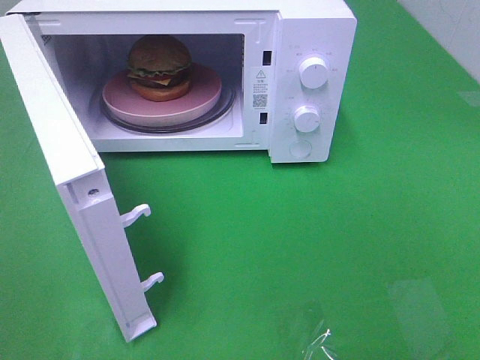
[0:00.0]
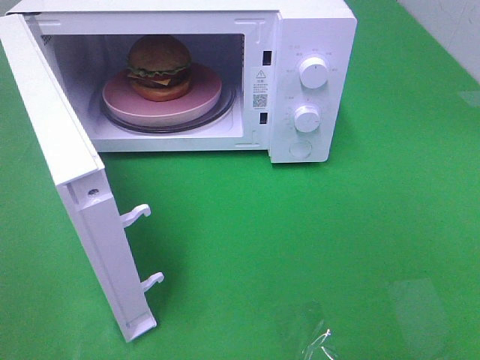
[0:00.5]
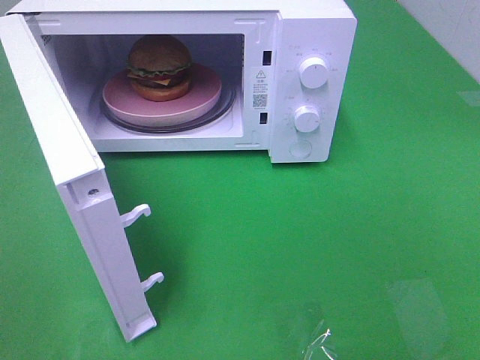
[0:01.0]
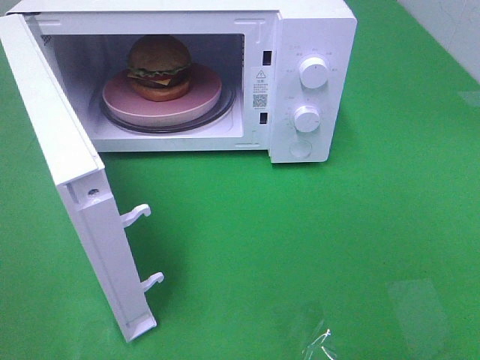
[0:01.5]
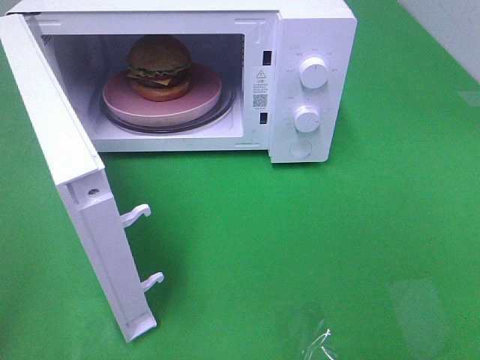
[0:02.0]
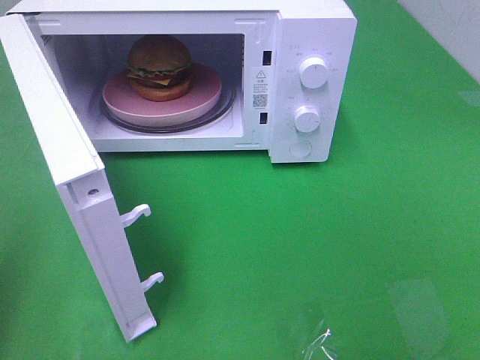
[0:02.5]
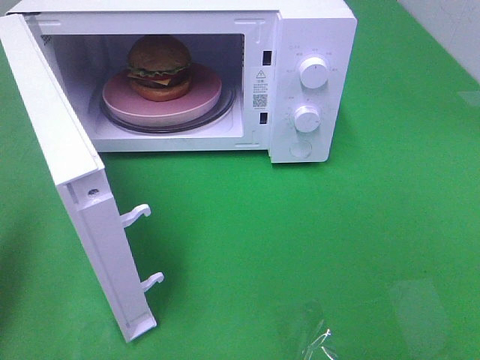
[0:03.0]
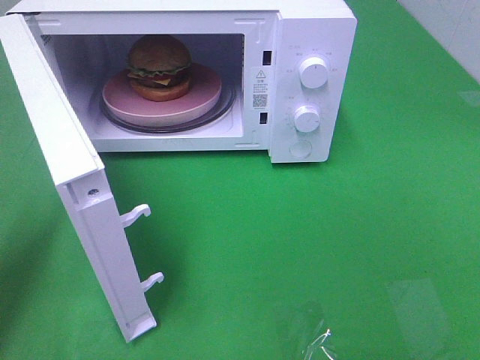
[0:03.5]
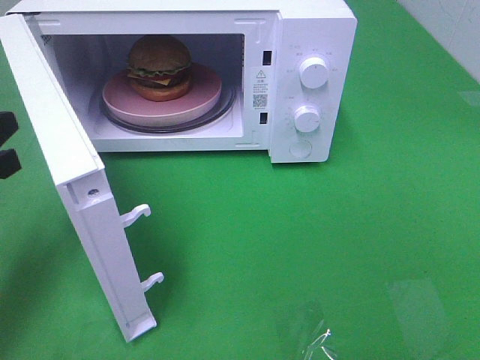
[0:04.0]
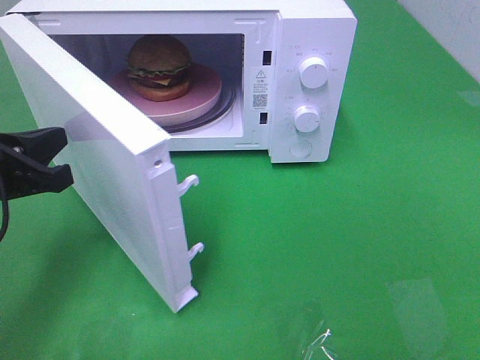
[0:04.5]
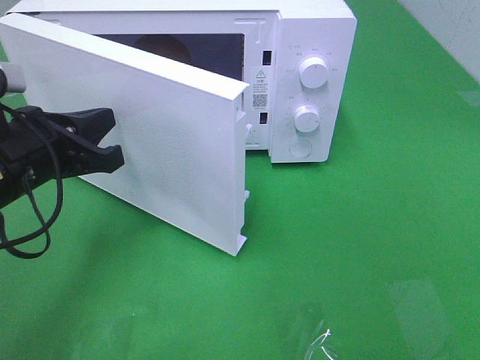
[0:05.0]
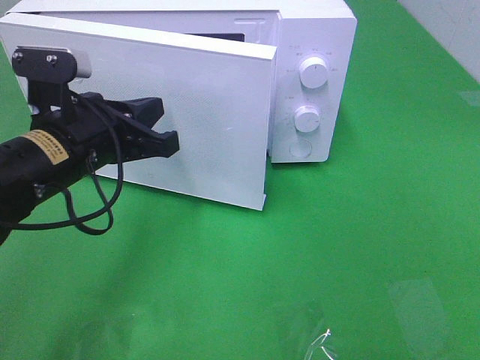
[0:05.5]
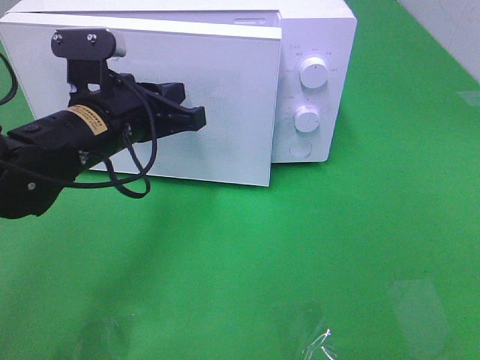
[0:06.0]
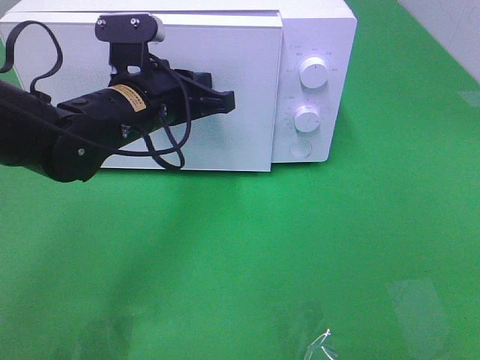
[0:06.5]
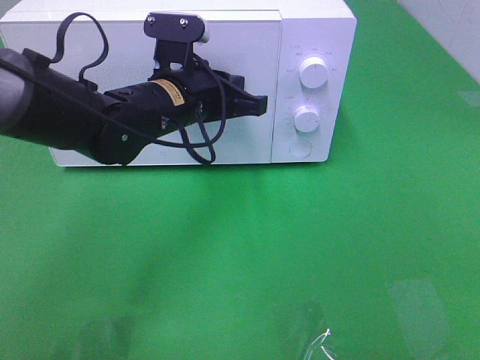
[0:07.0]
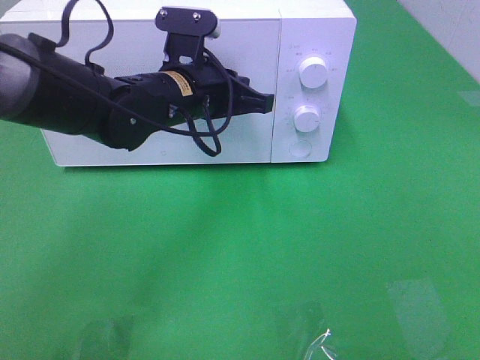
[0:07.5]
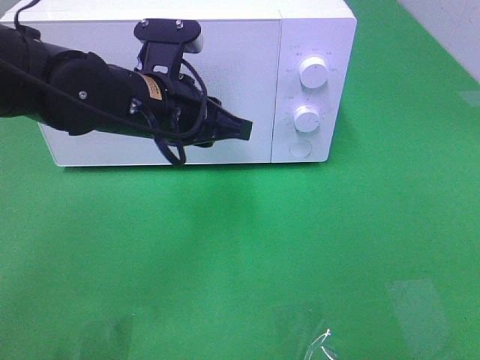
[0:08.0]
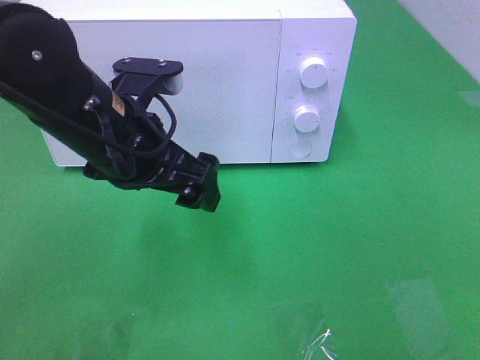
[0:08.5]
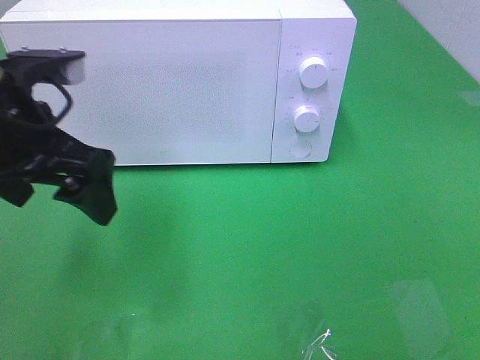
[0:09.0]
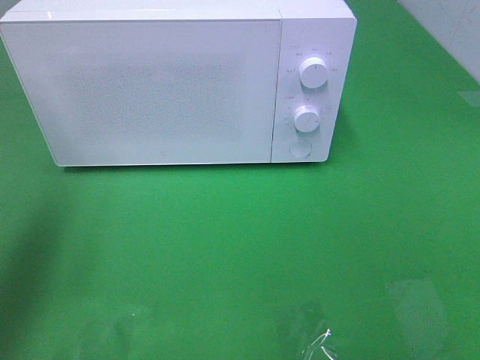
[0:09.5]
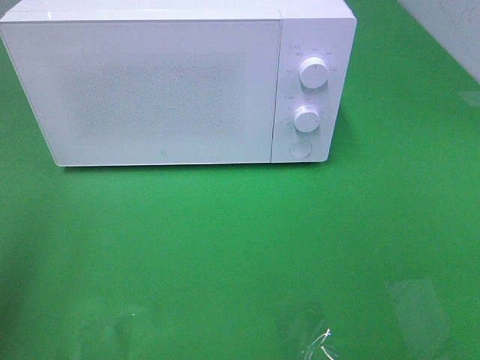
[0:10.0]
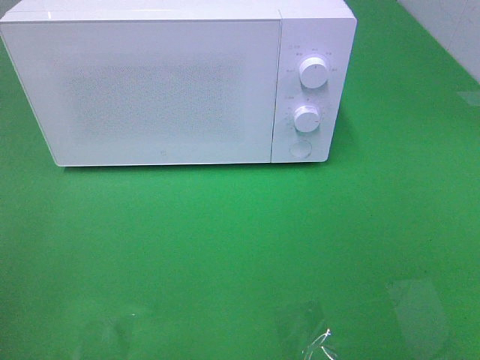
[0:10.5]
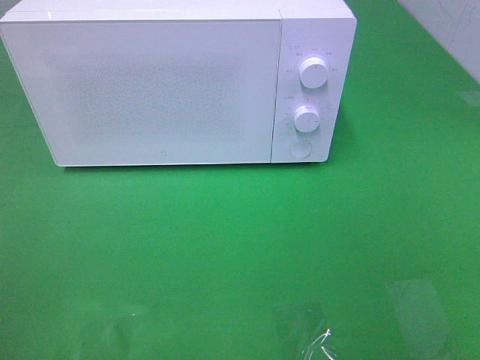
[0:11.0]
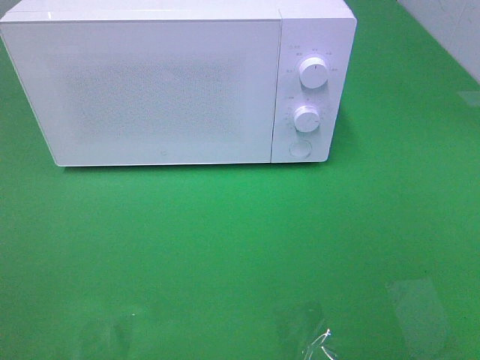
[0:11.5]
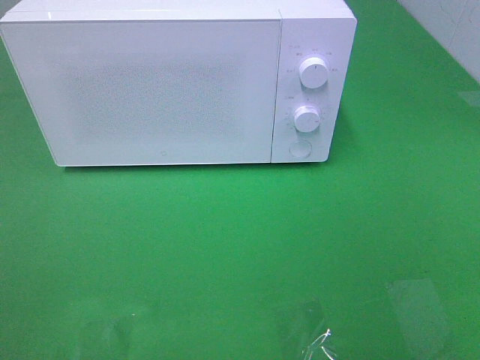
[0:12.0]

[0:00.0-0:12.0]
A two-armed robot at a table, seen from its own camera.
Task of the whole recording: Heat the burger.
Step, 0:00.0 to 0:07.5: Left hand: close the microwave door.
0:02.0 to 0:04.0: The left gripper is displaced forward and downward by about 20 cm.
0:04.0 to 0:06.0: The left gripper is displaced to the right and forward by approximately 20 cm.
0:06.0 to 0:08.0: The left gripper opens up.
0:08.0 to 0:10.0: The left gripper goes some 30 cm to the left, backward and upward, and opens its fingers.
0:10.0 to 0:12.0: The left gripper goes some 15 cm backward.

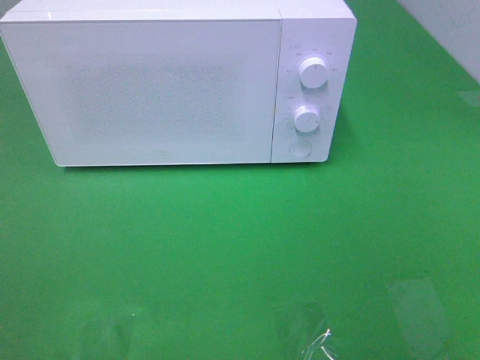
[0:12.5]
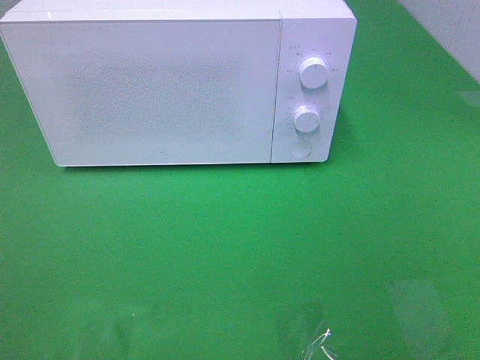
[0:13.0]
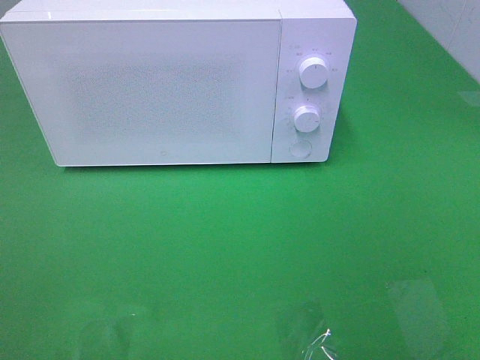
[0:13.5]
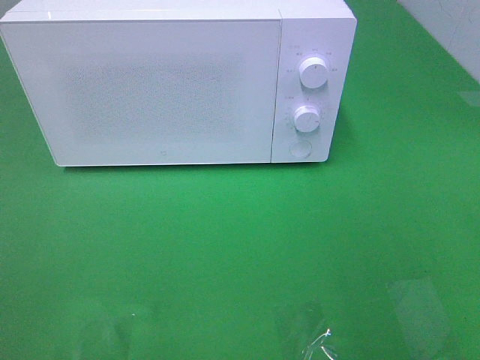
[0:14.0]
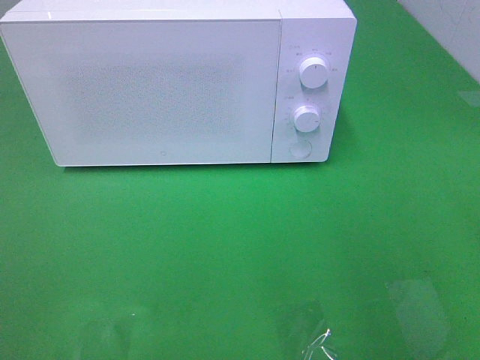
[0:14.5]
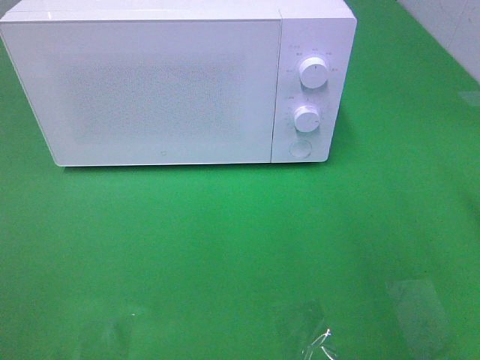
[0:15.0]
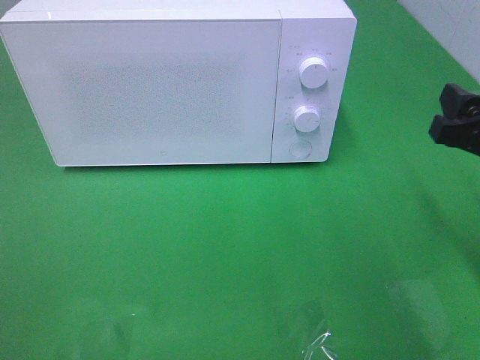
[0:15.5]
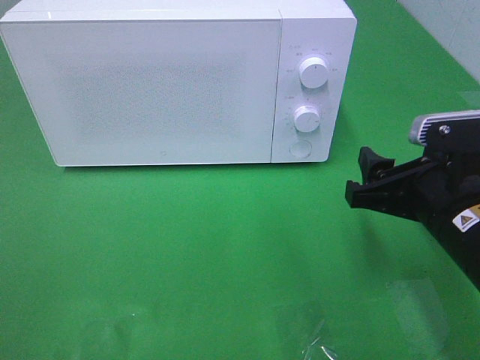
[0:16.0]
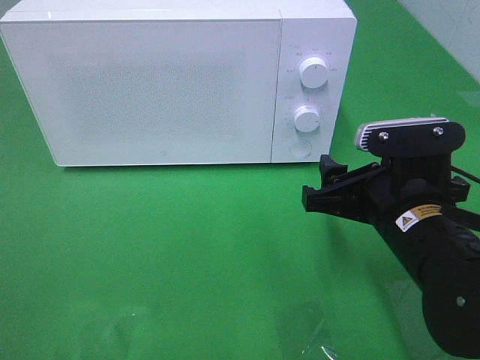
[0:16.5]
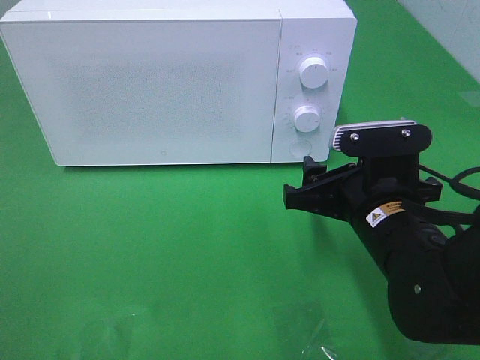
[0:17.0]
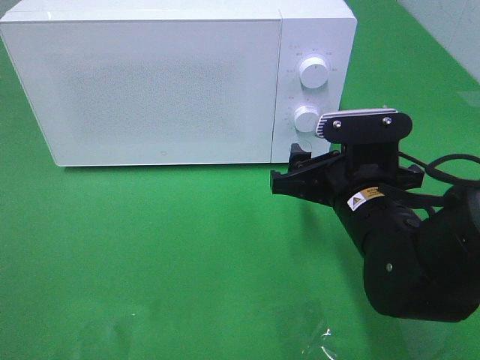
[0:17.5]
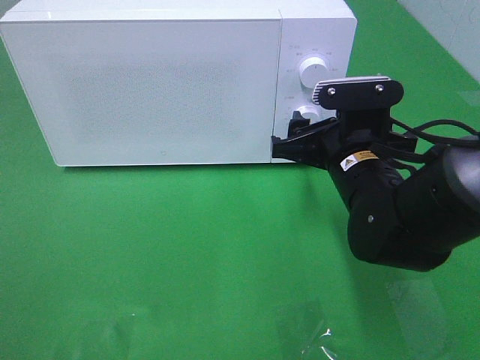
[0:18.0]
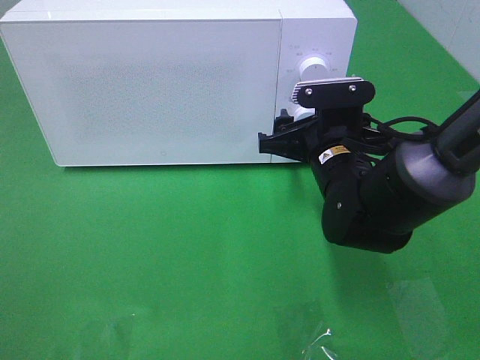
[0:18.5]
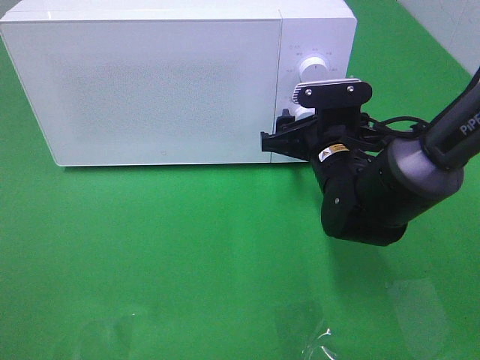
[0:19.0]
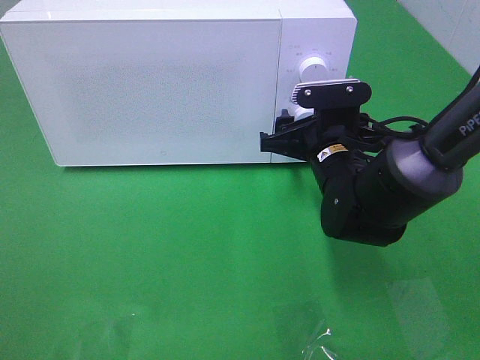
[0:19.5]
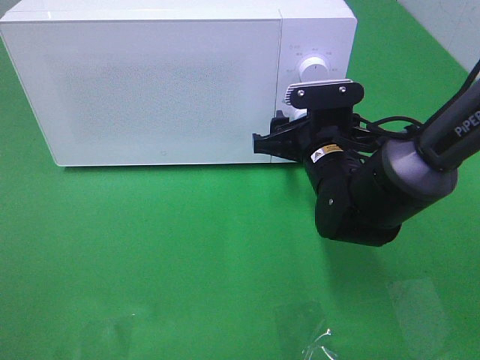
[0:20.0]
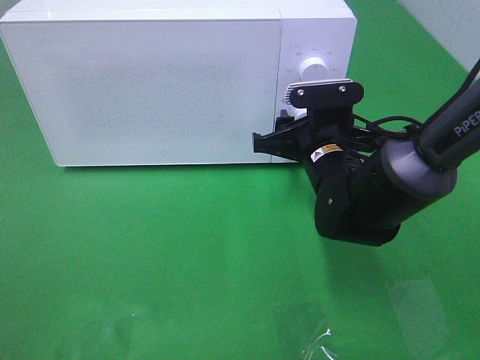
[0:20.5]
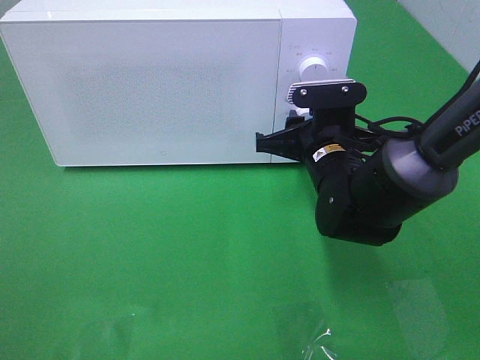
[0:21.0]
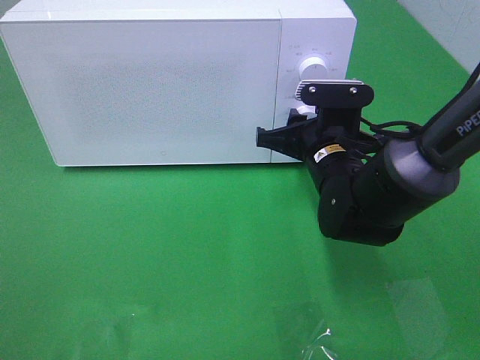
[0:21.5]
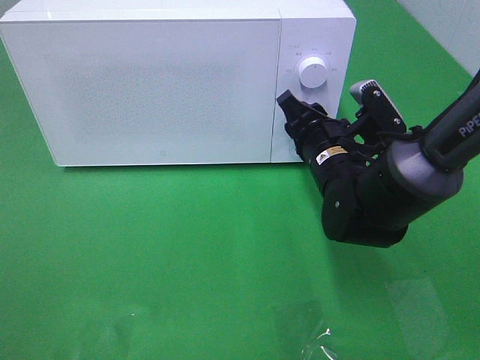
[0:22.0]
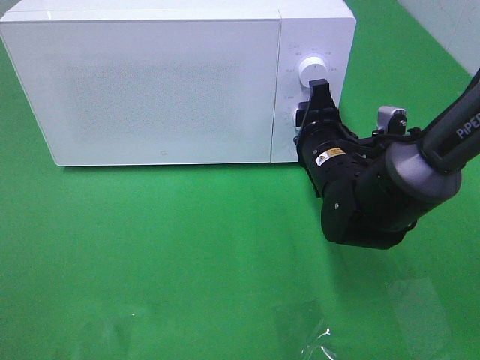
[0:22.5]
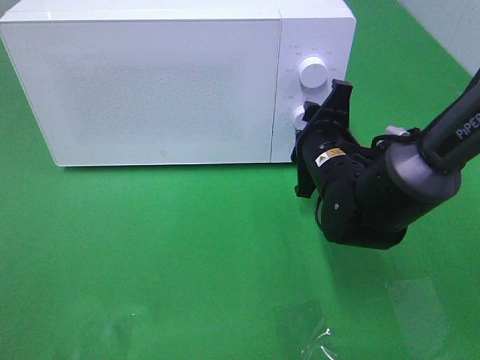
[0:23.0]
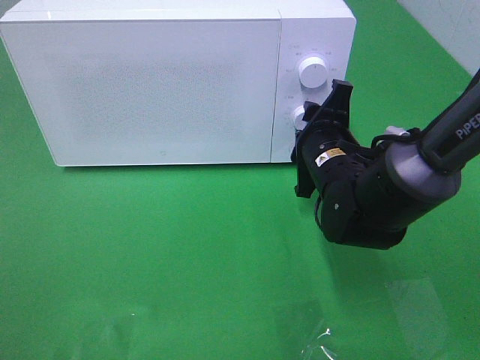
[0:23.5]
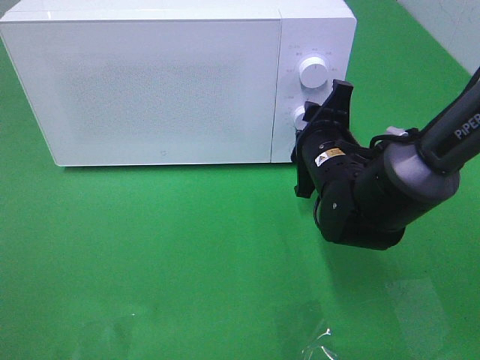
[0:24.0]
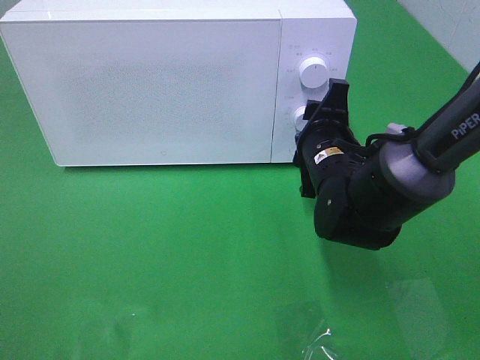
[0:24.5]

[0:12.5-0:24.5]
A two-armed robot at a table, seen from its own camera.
Task of the whole recording: Heat the burger.
0:14.5 to 0:16.5: The right gripper is displaced to the left, downward and forward by some 20 cm.
0:16.5 to 0:18.5: The right gripper travels forward by roughly 10 cm.
0:18.5 to 0:20.5: The grippers make only small movements.
0:22.5 to 0:24.5: There are only small adjustments of the grippers.

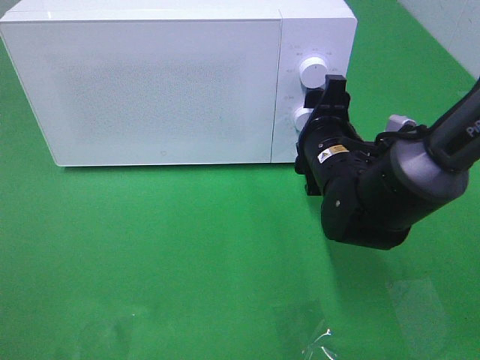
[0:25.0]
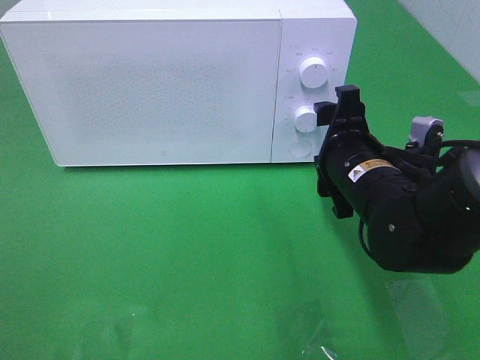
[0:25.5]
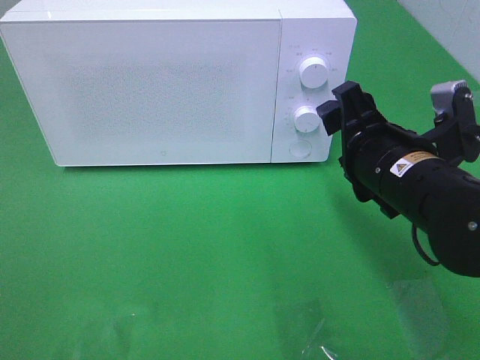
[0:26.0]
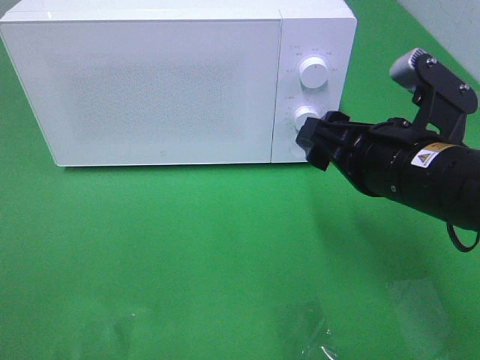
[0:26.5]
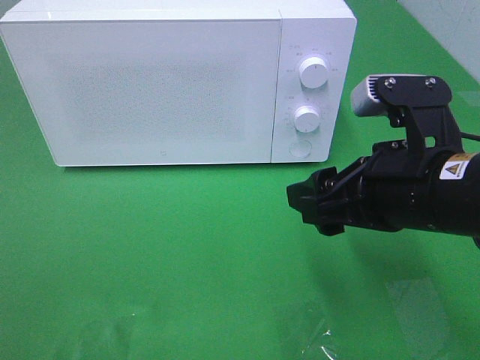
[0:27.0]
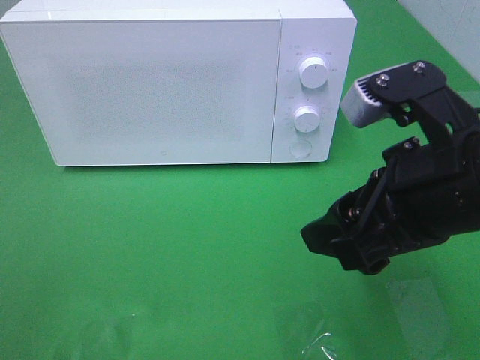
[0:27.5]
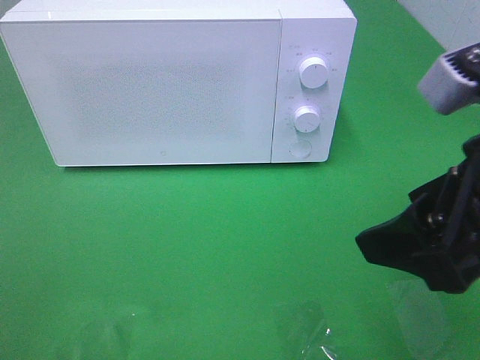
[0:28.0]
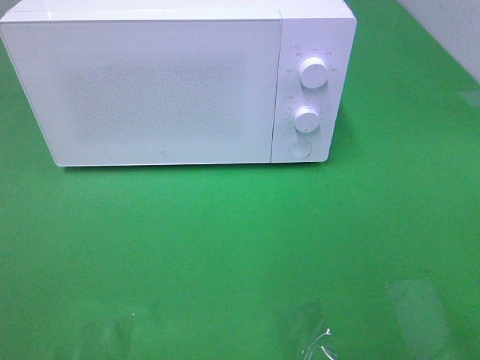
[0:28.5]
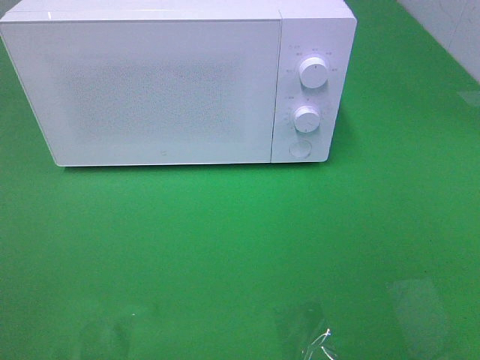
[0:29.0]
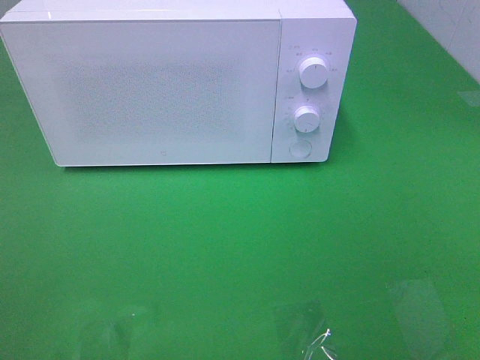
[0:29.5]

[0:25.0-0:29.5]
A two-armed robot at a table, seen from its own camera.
Task of the whole recording: Heat the burger.
0:25.0 to 0:27.0: The right gripper moves backward and upward, about 15 cm.
0:27.0 to 0:29.5: The right gripper heads backward, to the right and upward, covering about 25 cm.
